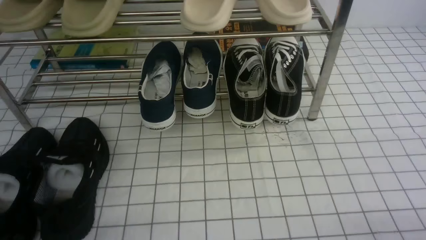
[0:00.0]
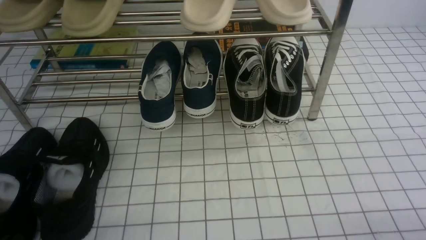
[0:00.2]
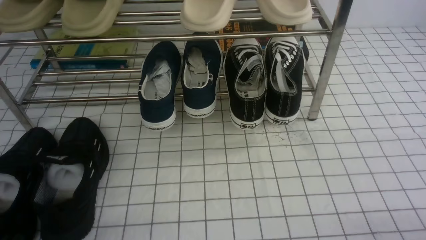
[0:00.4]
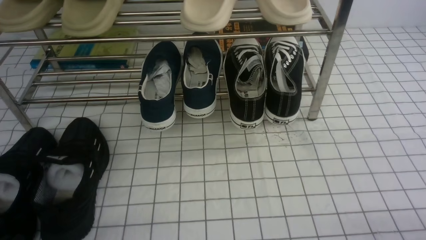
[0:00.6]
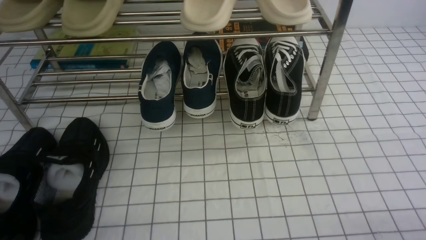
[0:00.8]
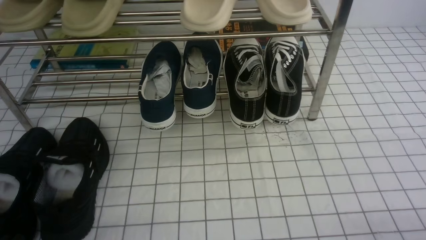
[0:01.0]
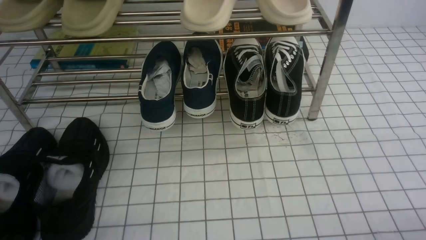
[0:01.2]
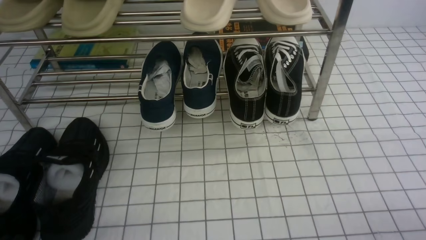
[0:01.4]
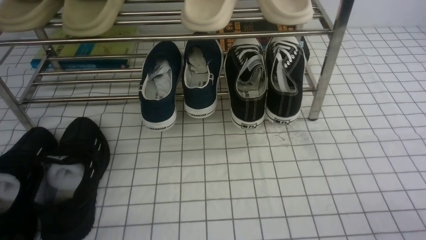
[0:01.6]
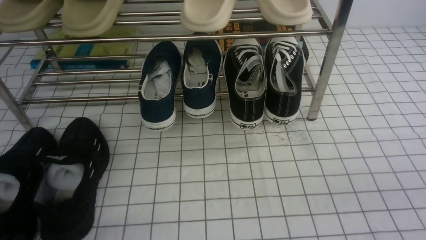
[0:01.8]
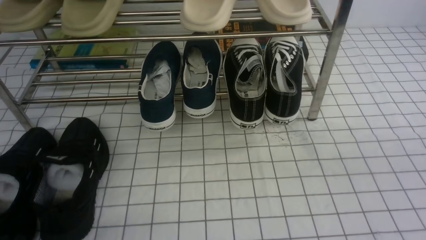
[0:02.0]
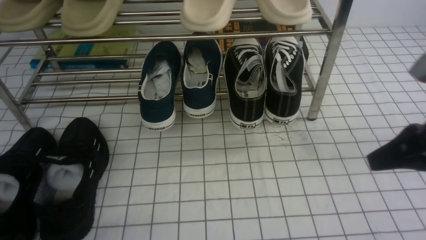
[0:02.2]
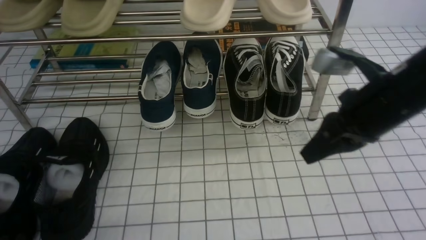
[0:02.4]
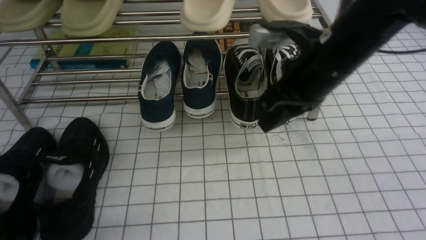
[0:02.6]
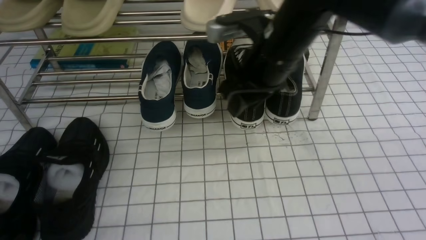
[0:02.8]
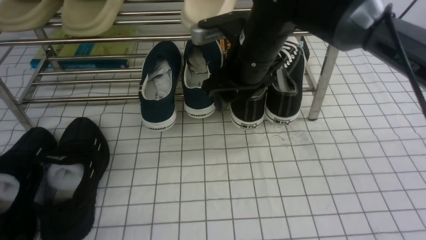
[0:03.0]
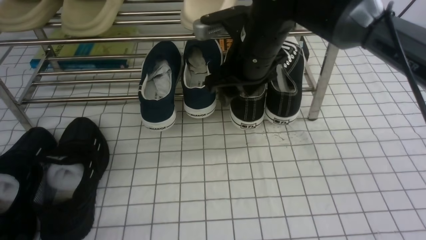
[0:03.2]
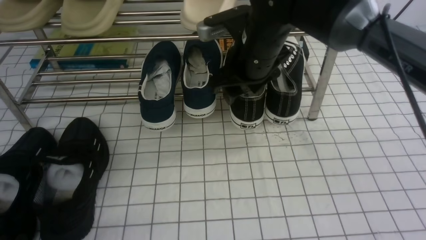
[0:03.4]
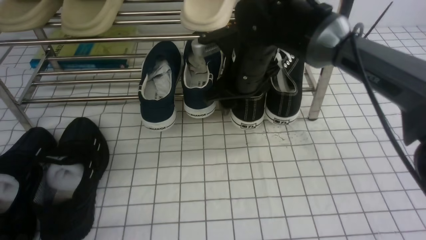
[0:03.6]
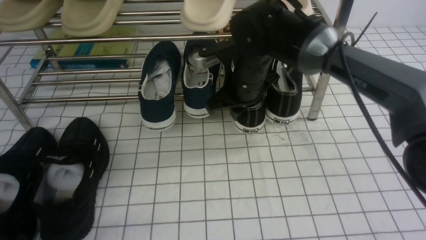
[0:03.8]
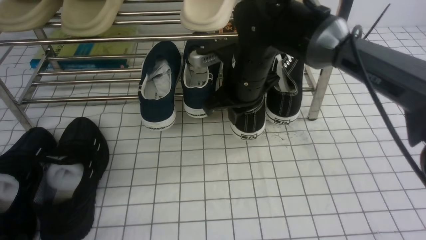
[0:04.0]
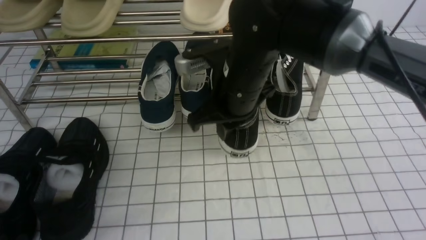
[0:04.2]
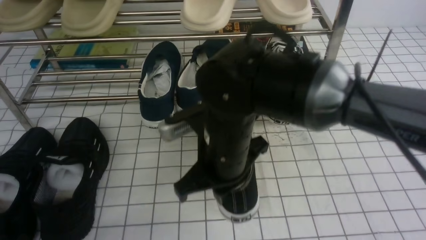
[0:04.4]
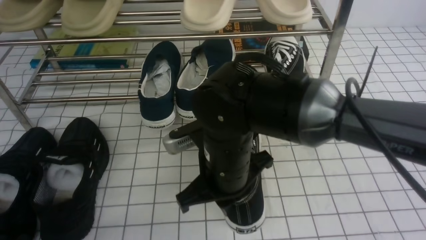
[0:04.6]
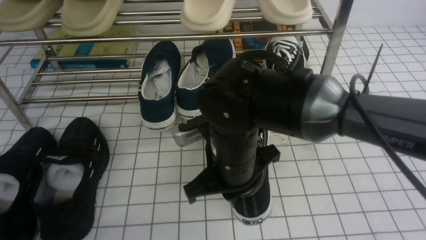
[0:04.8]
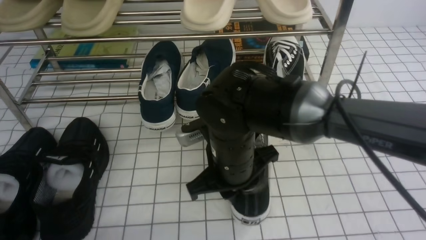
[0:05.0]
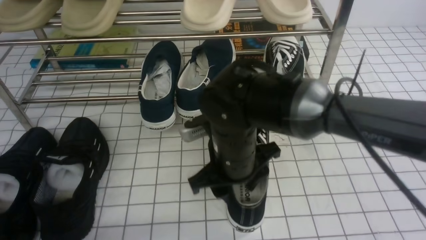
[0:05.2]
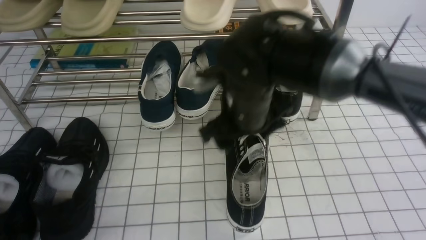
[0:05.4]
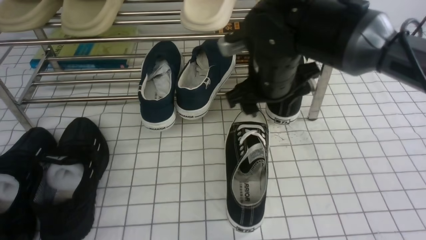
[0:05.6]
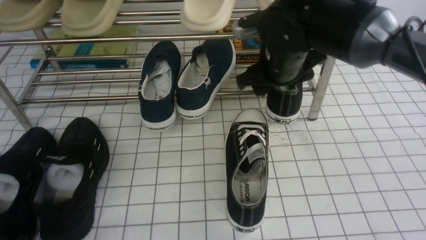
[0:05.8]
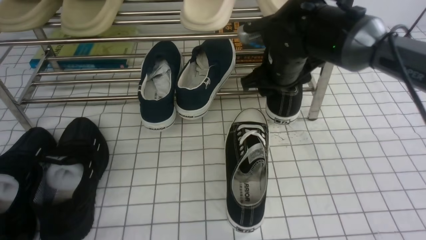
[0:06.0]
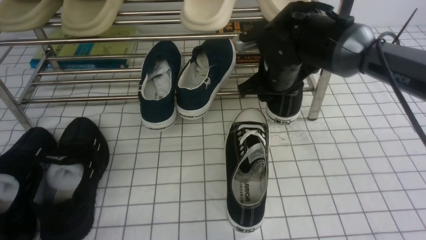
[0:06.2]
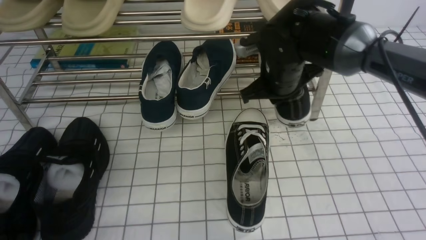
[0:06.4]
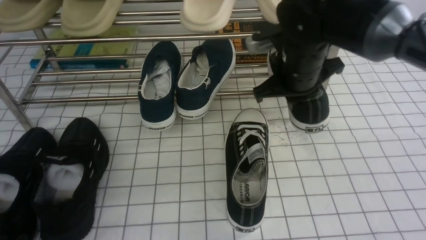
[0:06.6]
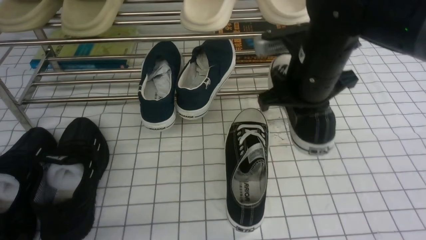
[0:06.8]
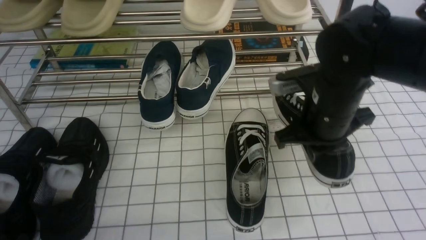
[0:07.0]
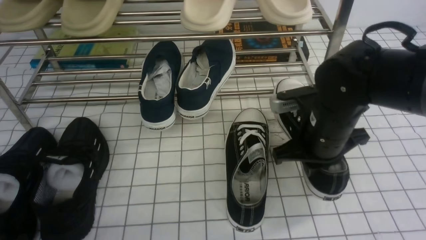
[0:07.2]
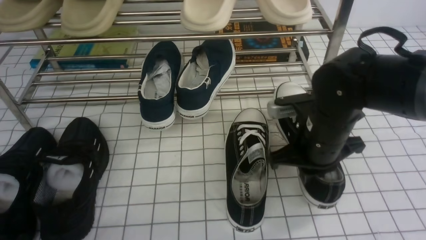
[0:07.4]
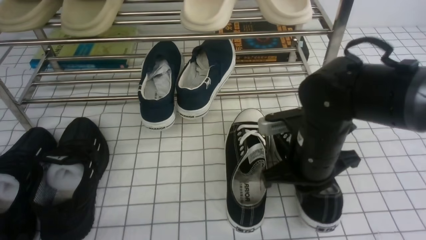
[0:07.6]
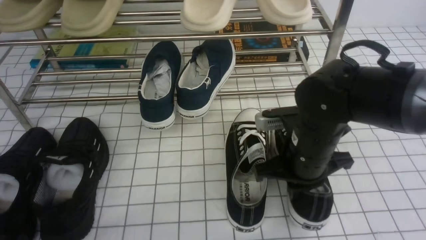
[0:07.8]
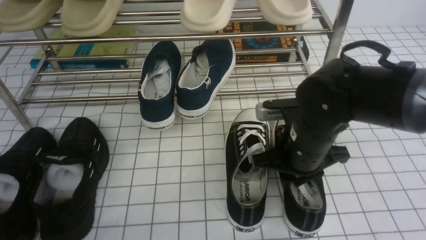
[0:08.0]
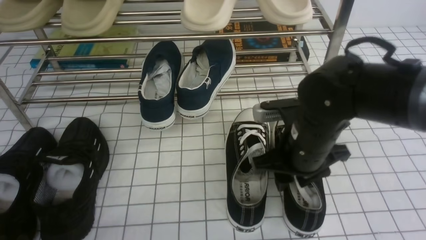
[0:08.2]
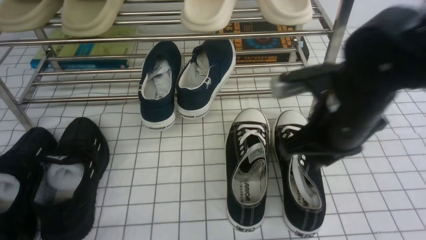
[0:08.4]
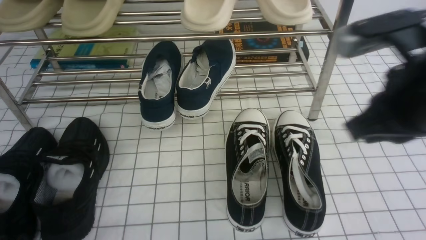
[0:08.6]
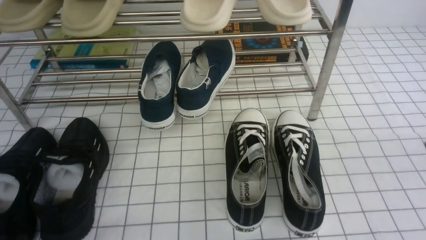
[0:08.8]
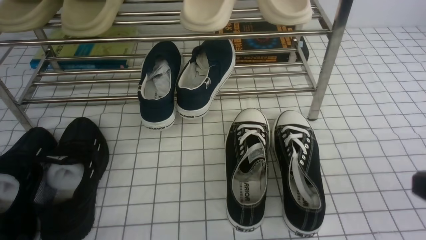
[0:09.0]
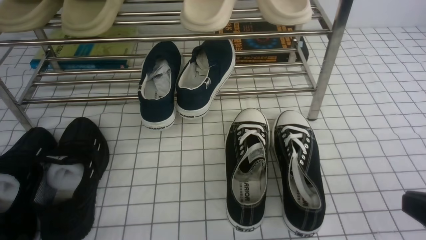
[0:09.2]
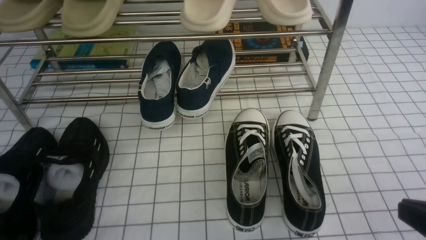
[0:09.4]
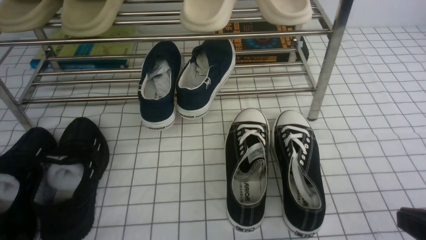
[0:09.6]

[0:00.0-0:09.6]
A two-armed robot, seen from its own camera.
Step, 0:00.0 to 0:03.6: use the right arm to clamp a shoe on the right side of the shoe rack.
Step, 0:03.8 to 0:05.2: use the right arm to take out the clamped shoe from the shoe rack and put it down.
Step, 0:05.4 to 0:06.2: use the right arm to clamp a shoe on the right side of the shoe rack.
Step, 0:06.4 to 0:08.2: use the right arm to take out the clamped shoe from the shoe rack and put it down.
0:01.6 to 0:03.2: The left gripper opens up; the right gripper shifts roughly 40 cm forward and to the left, and opens.
0:03.2 to 0:04.8: The right gripper is displaced backward and downward by approximately 15 cm, and closes its fingers.
0:04.8 to 0:06.4: The right gripper heads forward and to the right, covering roughly 20 cm, and opens and closes again.
0:06.4 to 0:08.0: The right gripper heads backward, covering roughly 10 cm.
0:08.0 to 0:09.6: The right gripper is displaced backward and to the right by about 25 cm.

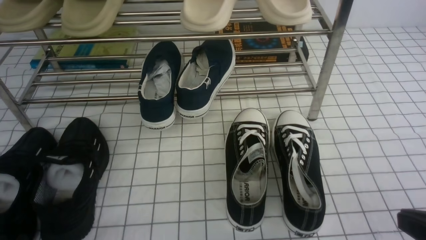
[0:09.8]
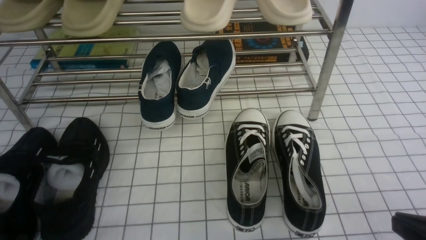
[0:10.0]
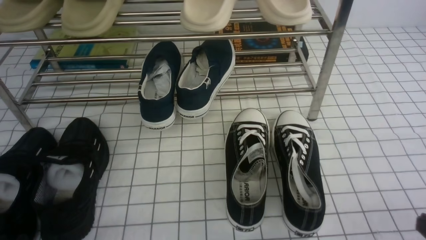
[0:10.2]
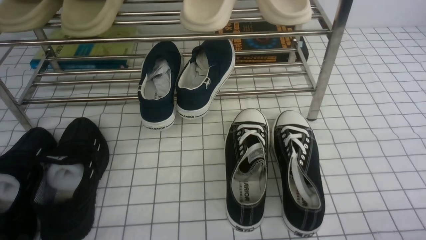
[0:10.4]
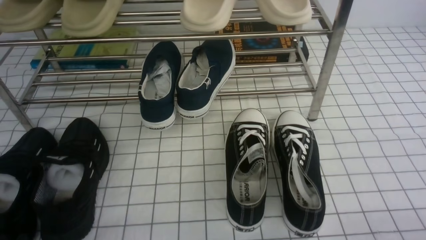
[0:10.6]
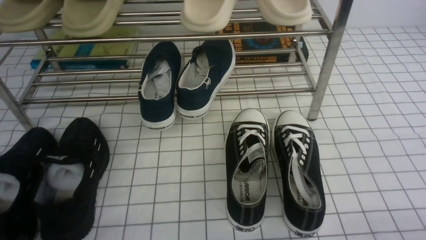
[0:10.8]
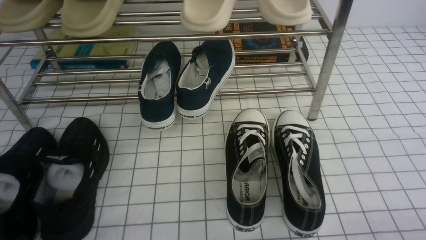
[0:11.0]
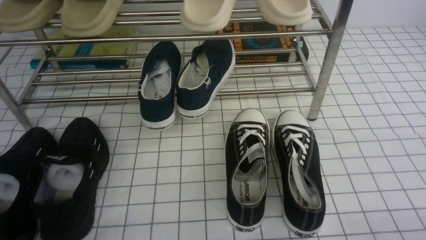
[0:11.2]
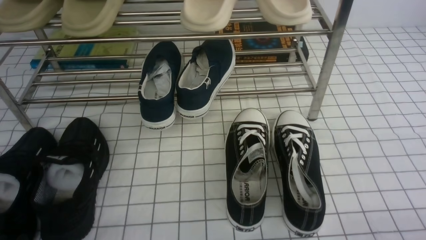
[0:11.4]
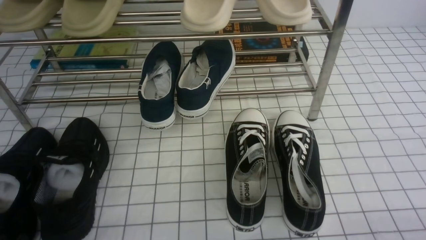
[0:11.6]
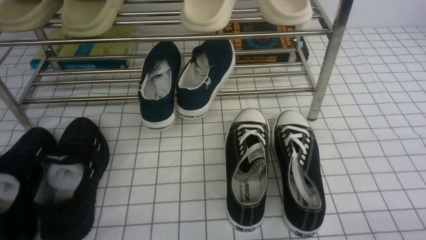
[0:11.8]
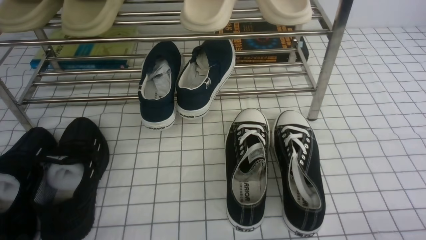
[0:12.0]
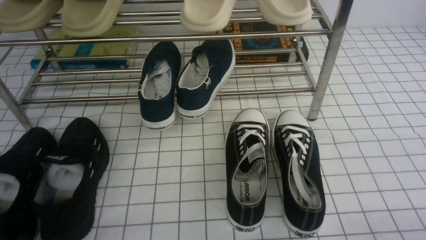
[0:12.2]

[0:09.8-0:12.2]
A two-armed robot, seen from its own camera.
0:09.8 to 0:11.0: The right gripper is displaced downward and to the right by some 10 cm.
0:11.0 to 0:12.2: Both grippers stay about where they are.
